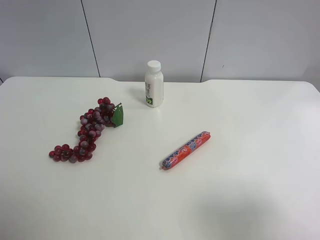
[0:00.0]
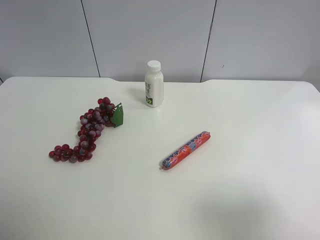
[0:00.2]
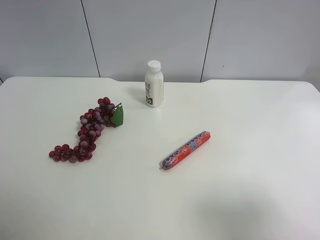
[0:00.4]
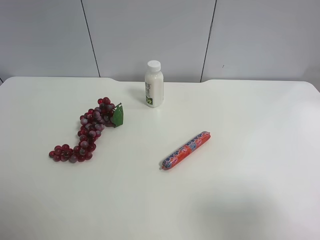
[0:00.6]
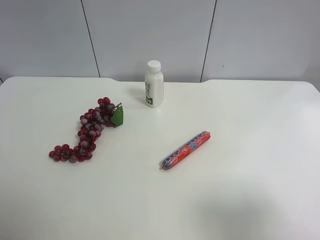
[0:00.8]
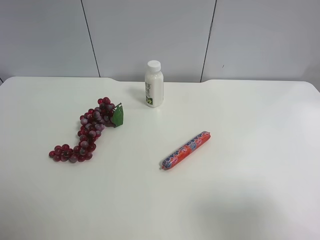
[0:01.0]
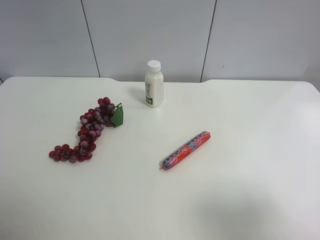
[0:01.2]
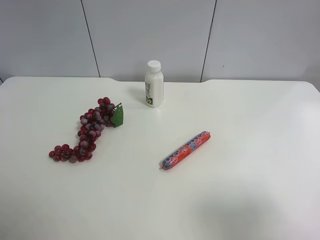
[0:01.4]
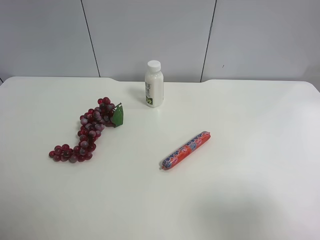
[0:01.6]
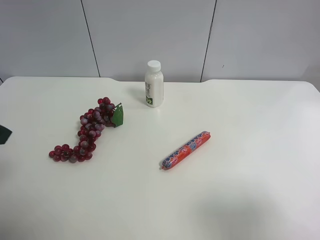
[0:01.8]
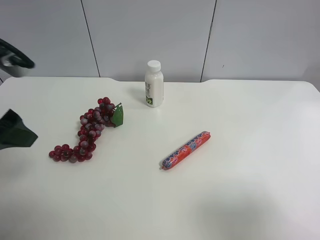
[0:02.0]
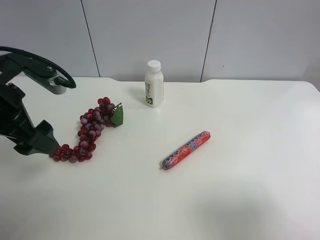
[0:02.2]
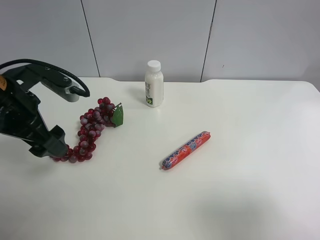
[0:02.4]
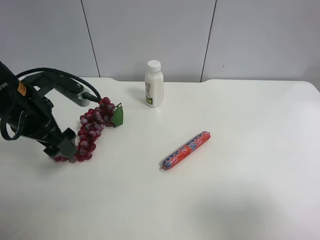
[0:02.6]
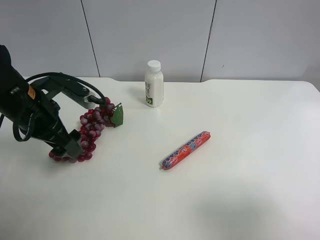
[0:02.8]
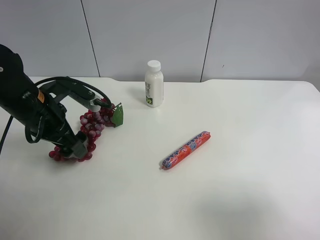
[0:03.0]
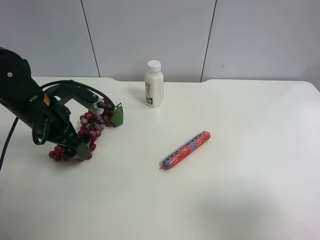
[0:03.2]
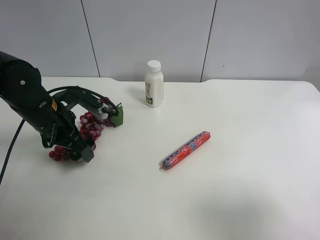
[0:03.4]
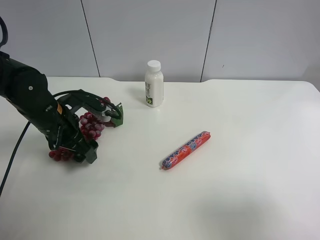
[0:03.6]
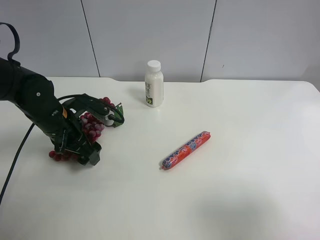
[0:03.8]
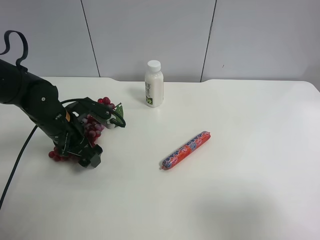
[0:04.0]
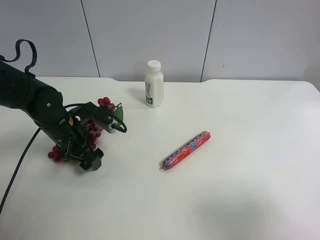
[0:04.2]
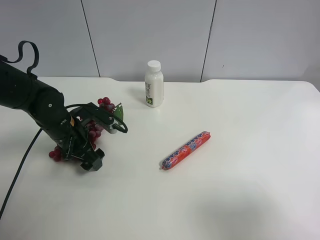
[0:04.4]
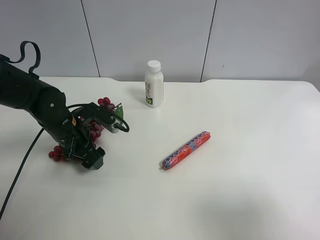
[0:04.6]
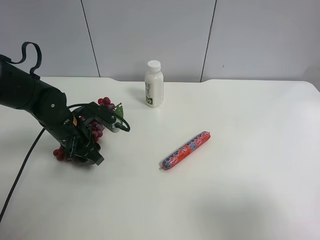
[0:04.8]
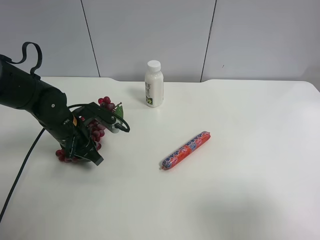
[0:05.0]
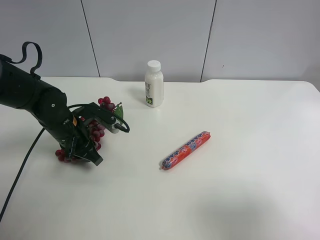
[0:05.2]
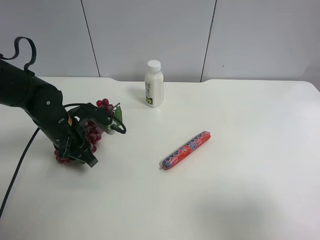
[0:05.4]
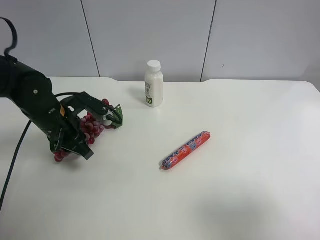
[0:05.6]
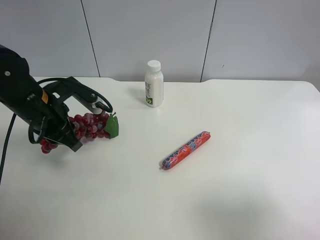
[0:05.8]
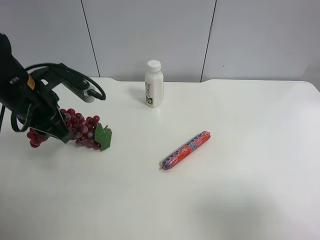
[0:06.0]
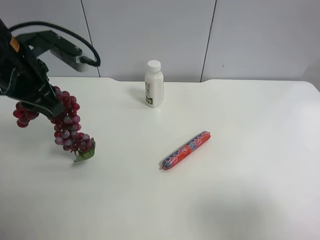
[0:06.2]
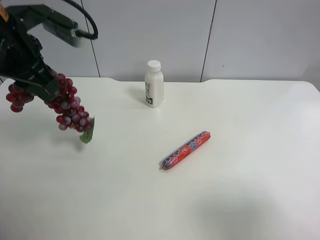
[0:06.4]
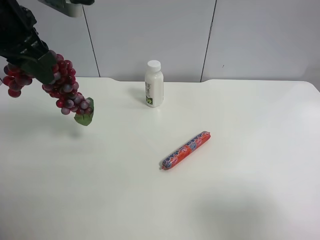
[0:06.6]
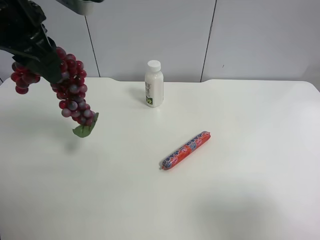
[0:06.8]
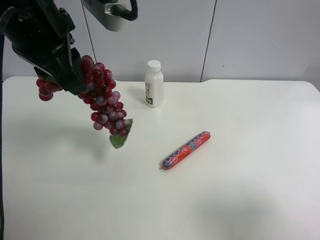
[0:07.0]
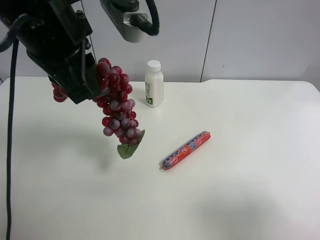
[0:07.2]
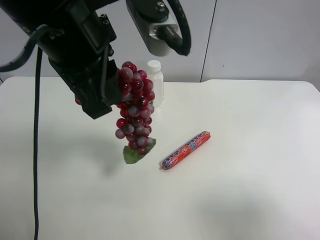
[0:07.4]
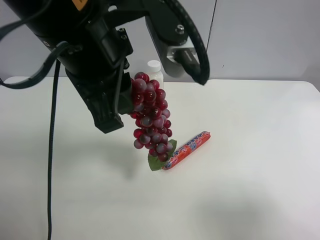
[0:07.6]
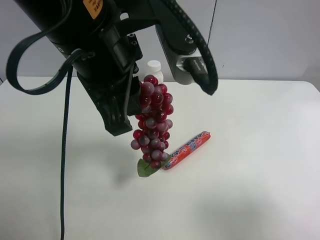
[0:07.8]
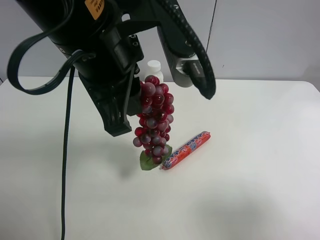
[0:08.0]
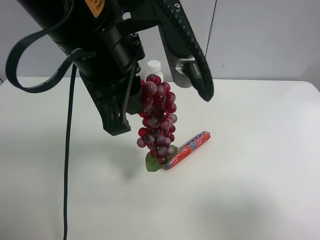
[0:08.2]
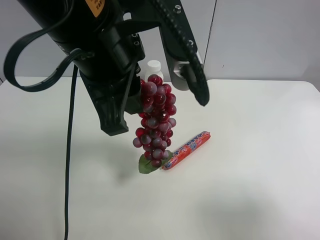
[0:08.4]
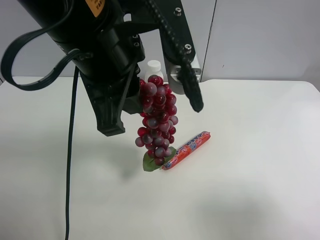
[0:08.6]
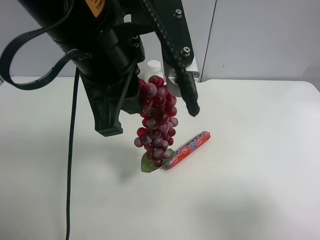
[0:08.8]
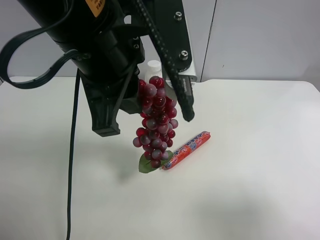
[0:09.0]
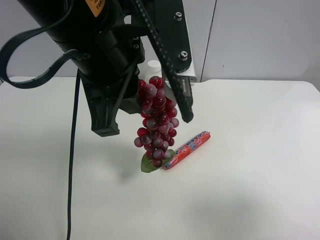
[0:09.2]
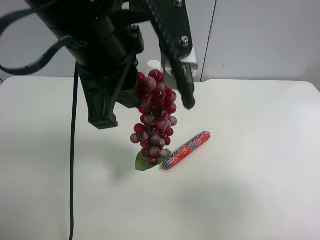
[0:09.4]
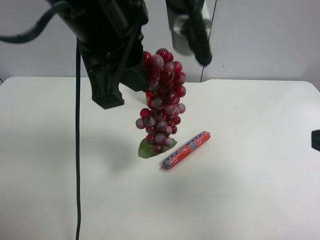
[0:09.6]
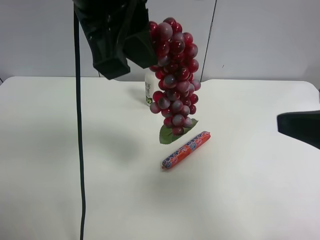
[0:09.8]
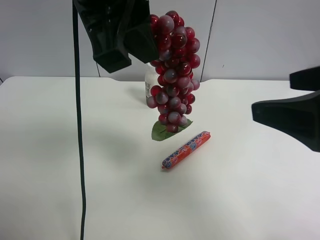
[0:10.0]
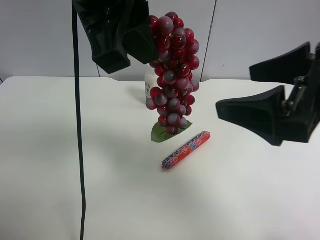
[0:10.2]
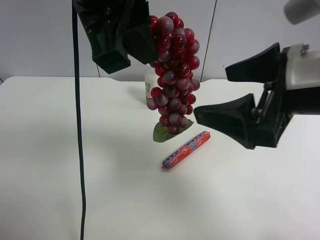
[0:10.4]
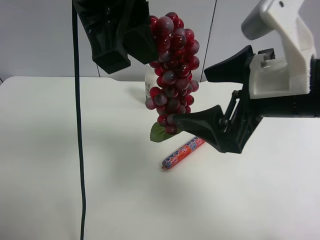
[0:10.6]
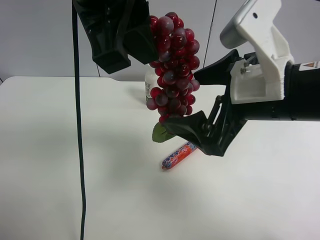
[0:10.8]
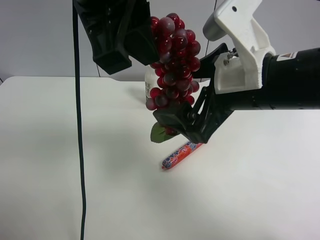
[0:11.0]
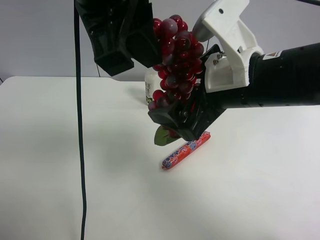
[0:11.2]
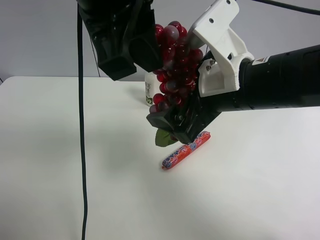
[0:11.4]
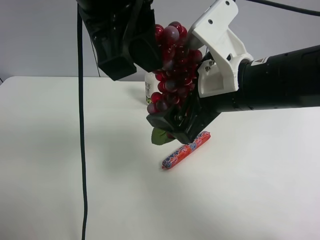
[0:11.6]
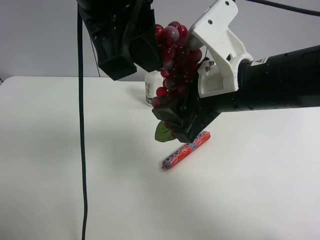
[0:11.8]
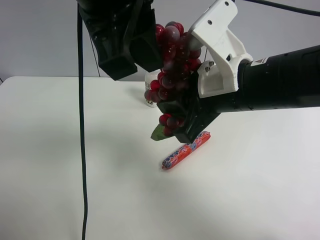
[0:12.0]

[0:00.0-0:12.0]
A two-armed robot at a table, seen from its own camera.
Task of the whole recording: use the left gripper to pick up the item and transfer it from the left gripper to the right gripper.
0:01.6 to 0:03.0: The left gripper heads forward, downward and to the right, covering about 25 cm.
0:03.0 to 0:04.4: The left gripper travels downward by approximately 10 cm.
0:04.4 to 0:06.0: The left gripper moves upward, some 10 cm, and closes its fingers.
0:06.0 to 0:07.6: The left gripper shifts some 20 cm to the right, upward and backward.
0:07.6 to 0:09.0: The grippers stay close to where they were, moving slightly.
0:09.0 to 0:10.4: The right gripper moves forward and to the left, roughly 20 cm, while the left gripper heads upward, covering some 5 cm.
0:10.4 to 0:12.0: The right gripper is displaced to the left by roughly 5 cm, and closes.

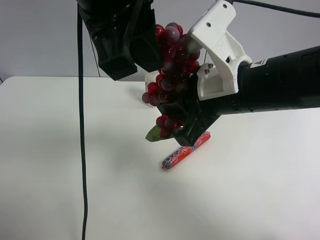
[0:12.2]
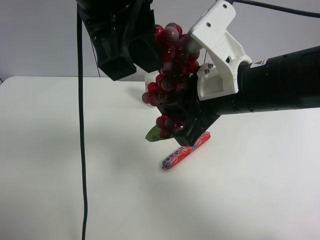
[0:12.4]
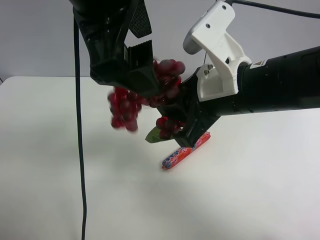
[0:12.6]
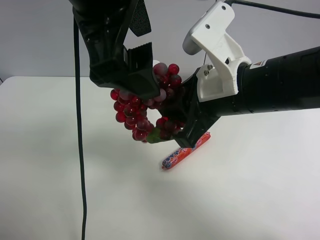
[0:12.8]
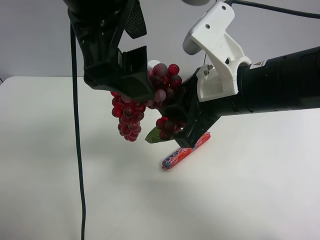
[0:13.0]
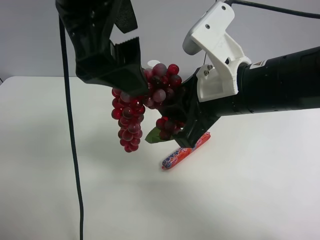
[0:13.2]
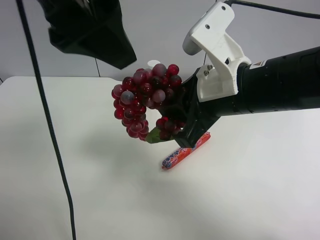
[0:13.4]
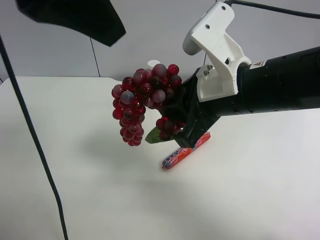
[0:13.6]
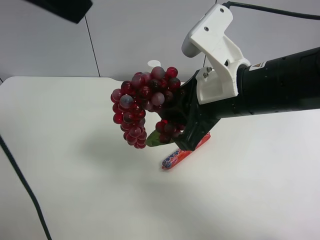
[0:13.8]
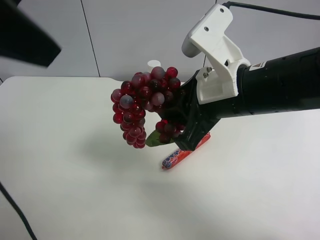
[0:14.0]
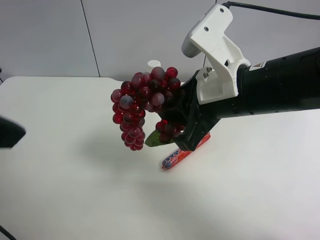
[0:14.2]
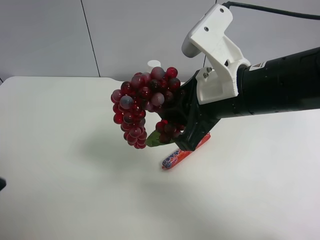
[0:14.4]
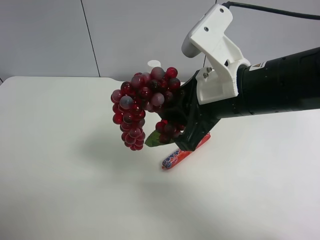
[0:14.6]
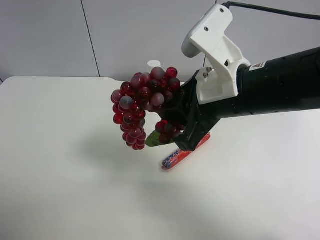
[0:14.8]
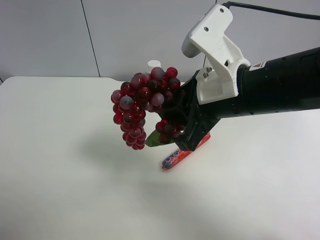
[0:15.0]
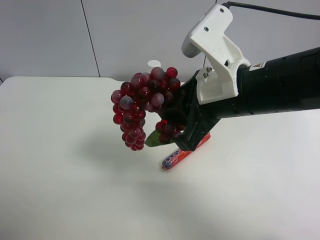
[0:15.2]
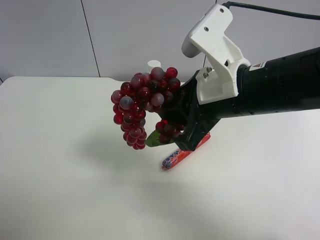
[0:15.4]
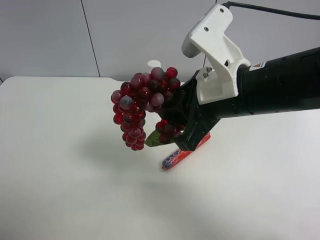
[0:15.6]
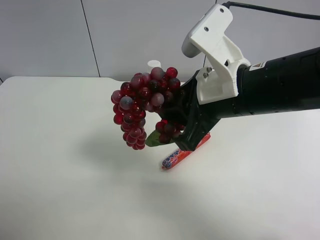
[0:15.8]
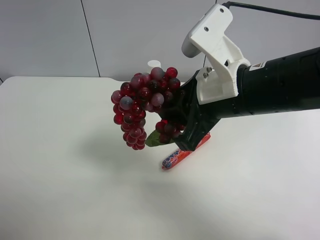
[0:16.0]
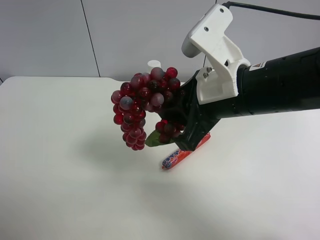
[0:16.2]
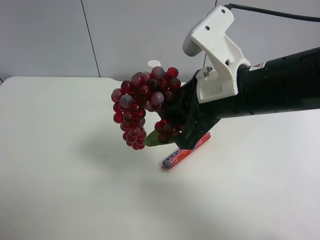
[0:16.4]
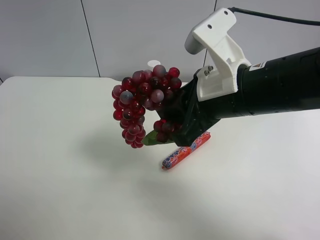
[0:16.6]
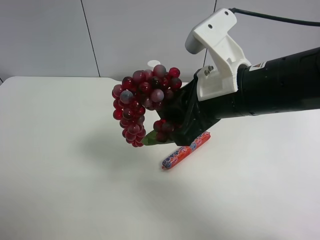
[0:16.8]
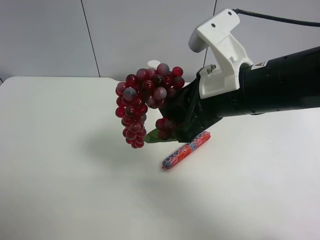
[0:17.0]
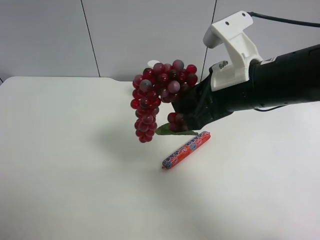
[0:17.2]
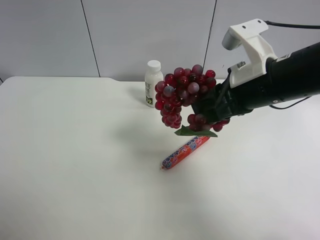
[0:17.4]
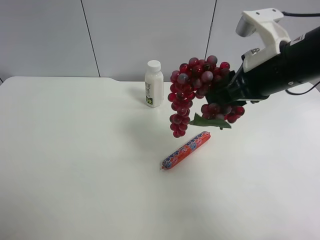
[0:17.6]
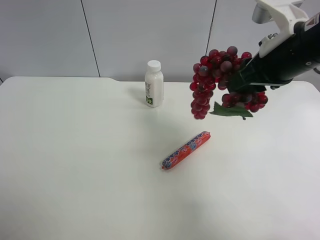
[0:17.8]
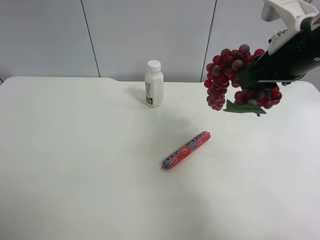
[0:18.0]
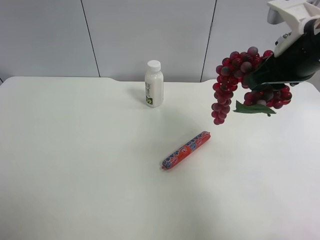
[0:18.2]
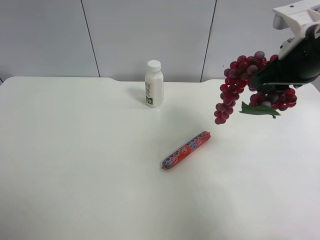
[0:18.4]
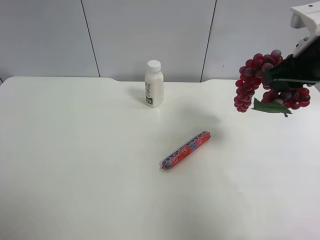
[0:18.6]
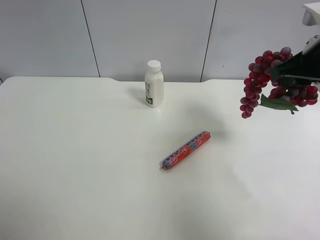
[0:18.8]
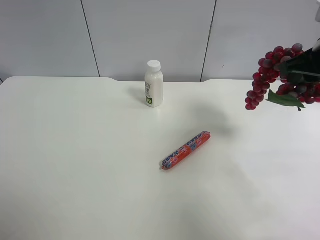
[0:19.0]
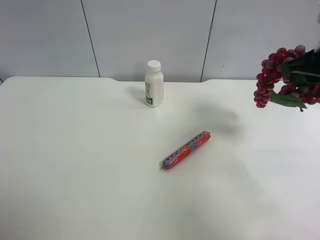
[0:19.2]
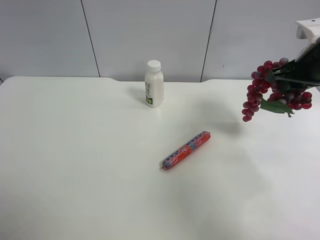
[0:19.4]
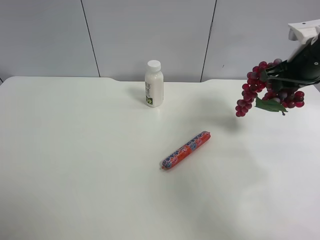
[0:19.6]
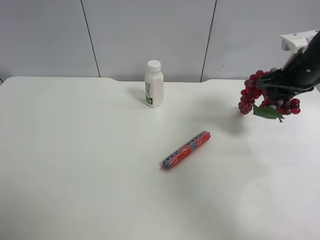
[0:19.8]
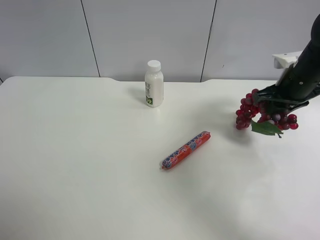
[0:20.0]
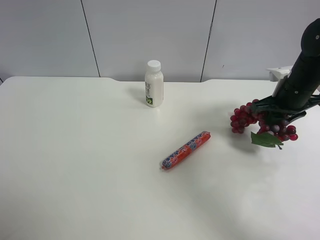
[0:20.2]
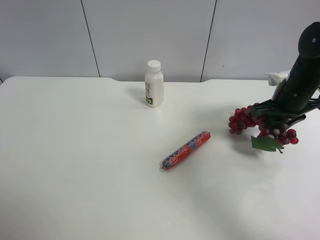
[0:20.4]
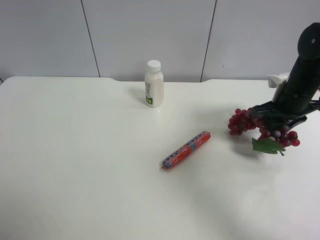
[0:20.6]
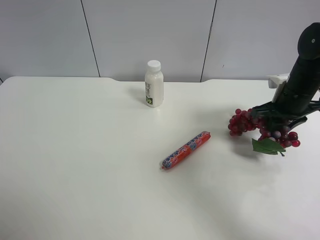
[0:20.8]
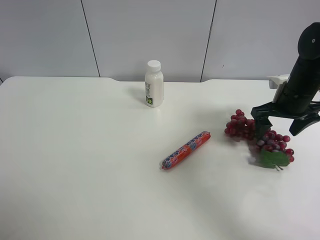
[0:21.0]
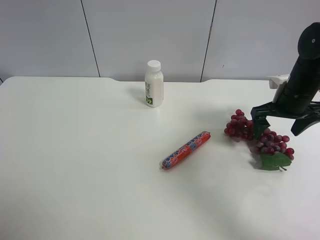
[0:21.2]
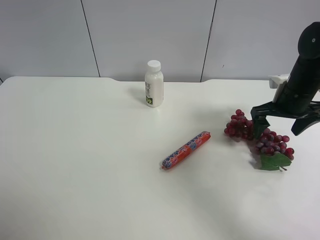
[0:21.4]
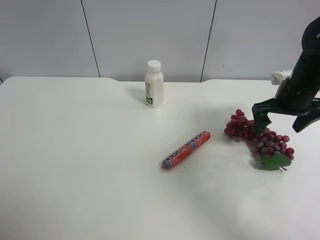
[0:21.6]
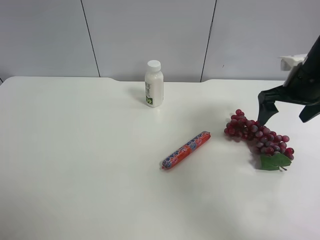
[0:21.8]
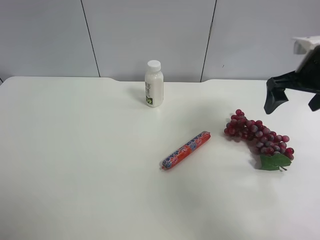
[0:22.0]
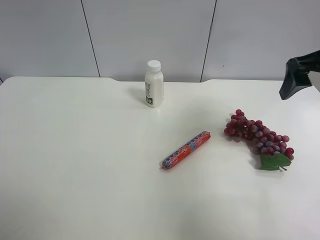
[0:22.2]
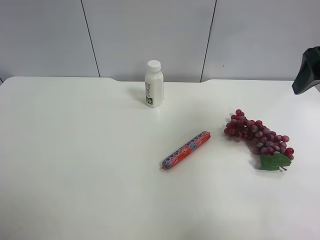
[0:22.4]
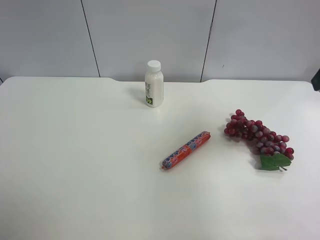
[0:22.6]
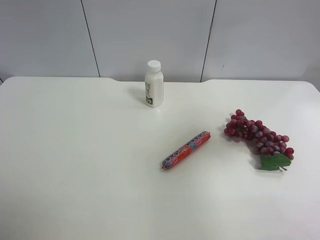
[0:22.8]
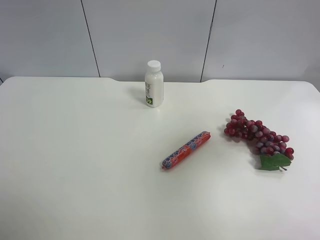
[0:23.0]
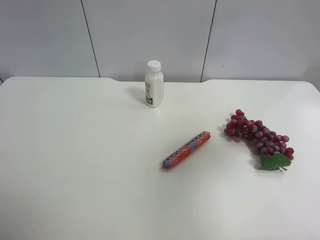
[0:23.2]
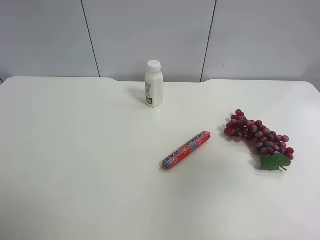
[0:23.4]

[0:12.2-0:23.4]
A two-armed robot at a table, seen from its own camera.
Task of the whole recording: use the left gripper to pick up the item and transfer it from the left gripper to the right gripper.
0:12.2 to 0:13.8: The left gripper travels to the left and upward by about 10 cm, and opens up.
0:13.8 to 0:15.4: The left gripper travels downward, to the left and backward by about 30 cm.
0:17.0 to 0:18.6: The right gripper shifts approximately 15 cm to the right and forward.
0:18.6 to 0:20.2: The right gripper travels downward and forward by approximately 15 cm.
0:20.2 to 0:21.8: The right gripper shifts by about 5 cm, and opens.
0:21.8 to 0:23.4: The right gripper shifts roughly 30 cm backward and upward.
